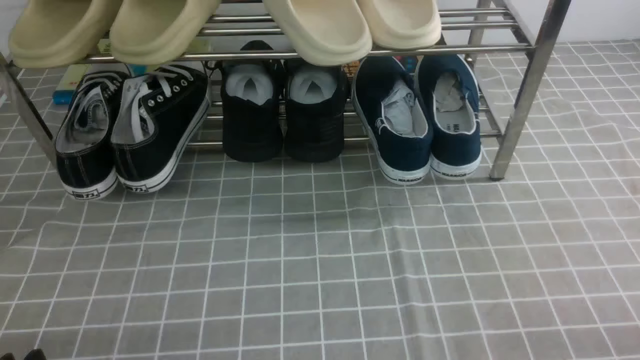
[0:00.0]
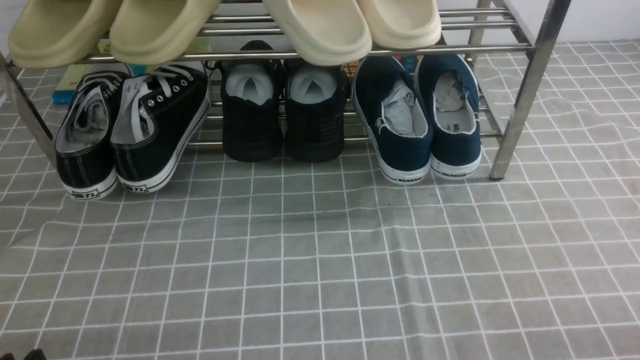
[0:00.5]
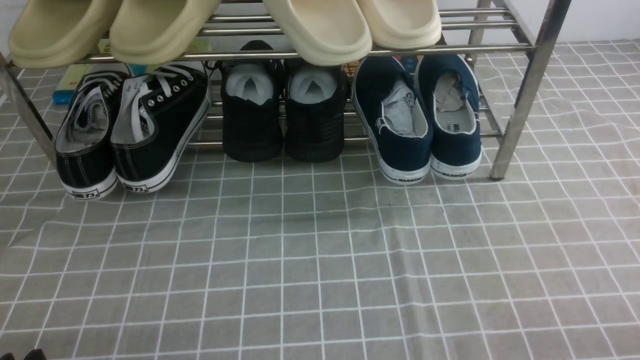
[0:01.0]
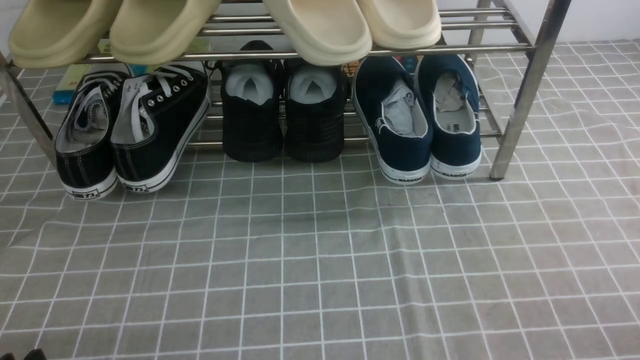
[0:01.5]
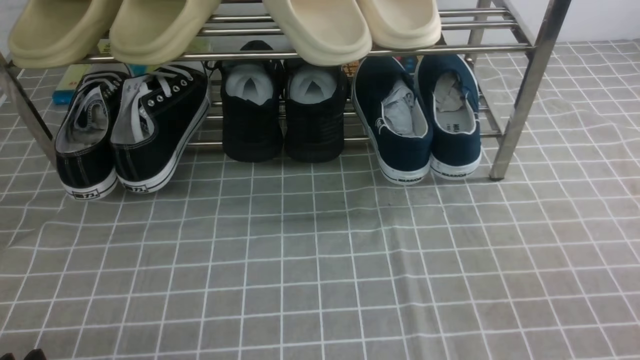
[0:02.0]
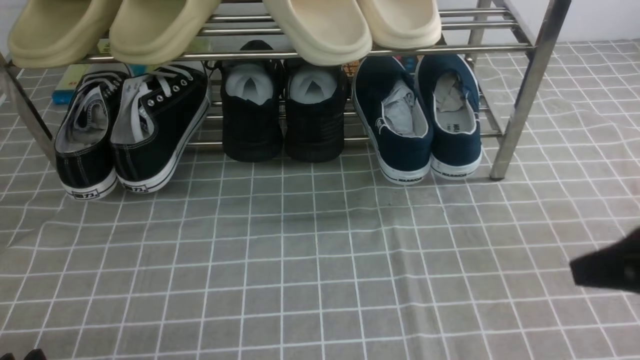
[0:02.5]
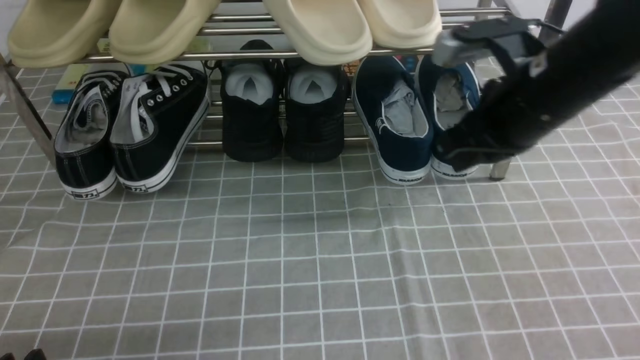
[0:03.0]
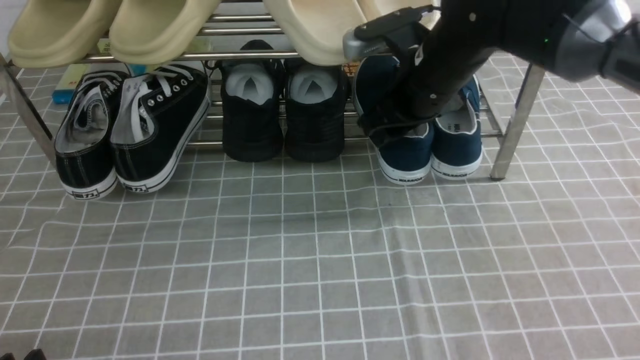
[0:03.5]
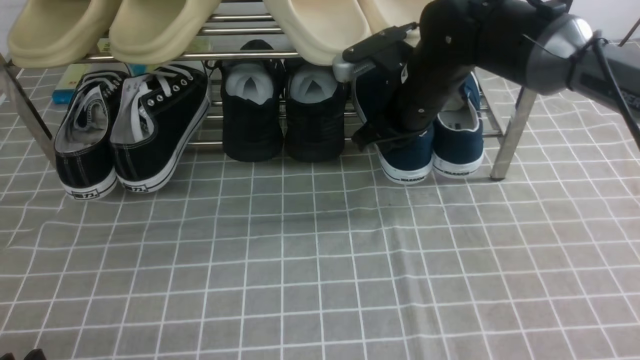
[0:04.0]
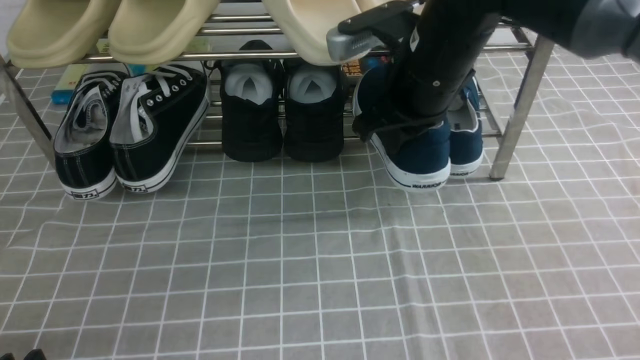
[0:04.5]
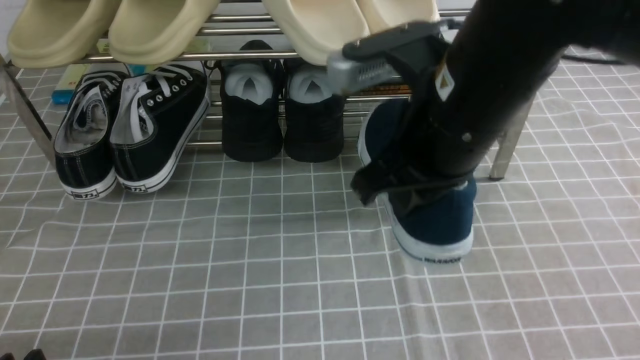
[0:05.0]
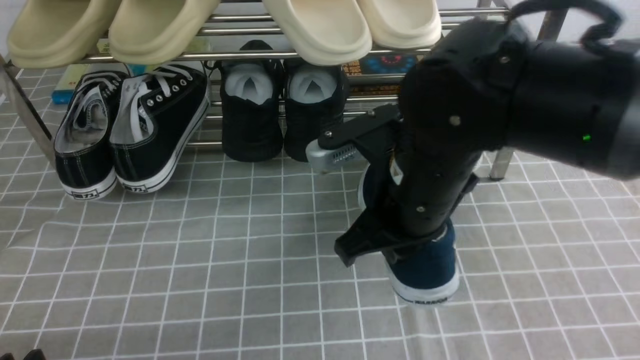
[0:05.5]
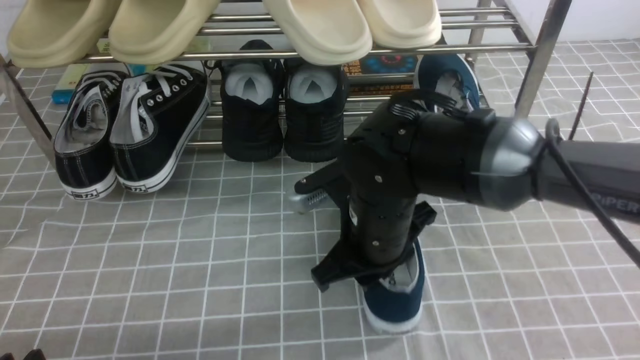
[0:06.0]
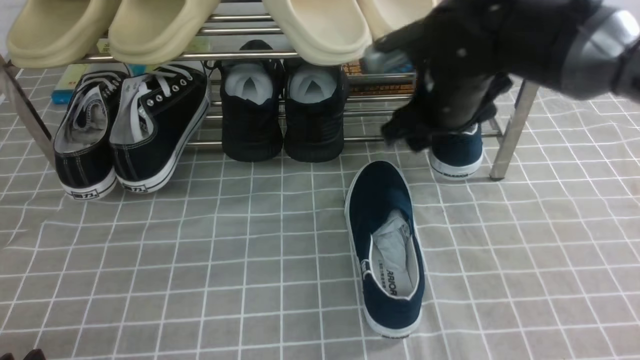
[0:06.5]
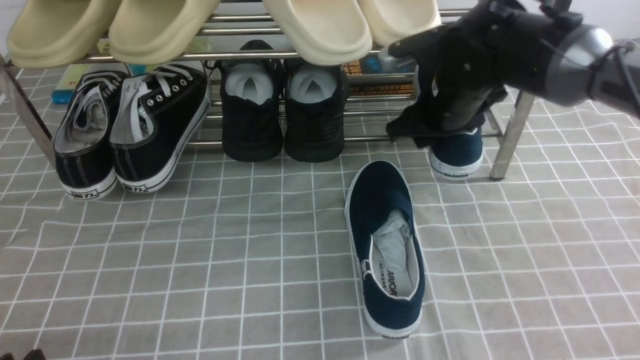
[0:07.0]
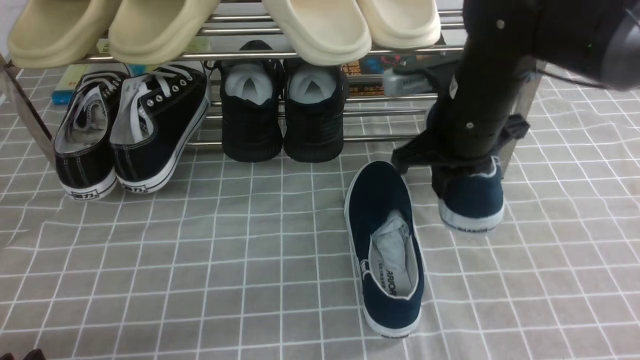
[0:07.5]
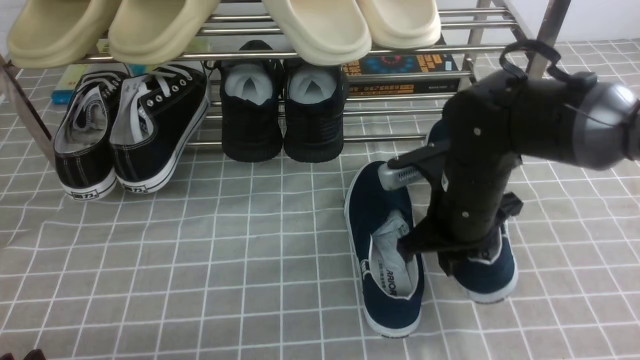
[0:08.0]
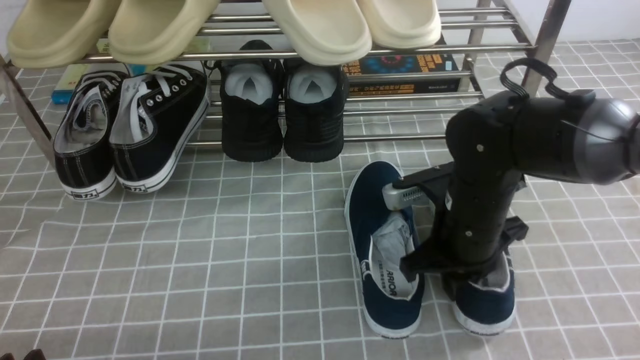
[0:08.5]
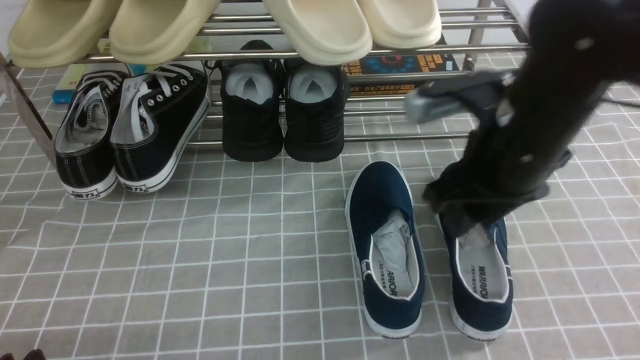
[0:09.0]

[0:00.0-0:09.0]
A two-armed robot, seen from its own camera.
Step, 0:00.0 to 0:04.0: use the right arm to clamp a shoe on the right side of the shoe rack.
Step, 0:04.5 to 0:06.0: use the right arm to take out the clamped shoe from the shoe rack and put it down.
Step, 0:06.5 to 0:07.0: use the right arm to clamp a shoe on the right side of the shoe rack.
Step, 0:07.5 to 0:08.5: use the right arm to take out the clamped shoe from the shoe rack and put it down.
0:02.0 to 0:04.5: The right gripper goes about 35 cm forward and to the left, and opens, then closes again.
0:04.5 to 0:07.0: The right gripper shifts some 10 cm downward and forward, and opens its fingers.
0:07.0 to 0:09.0: The right gripper shifts approximately 15 cm backward and upward, and closes, then opens again.

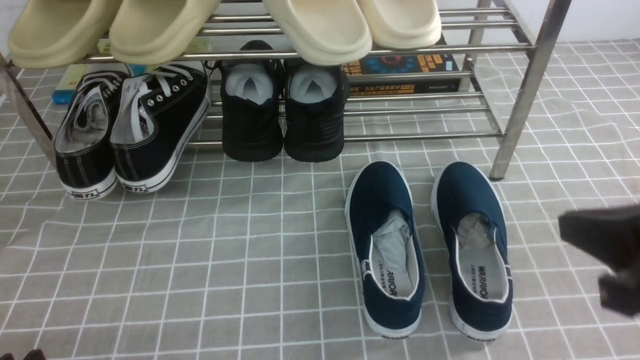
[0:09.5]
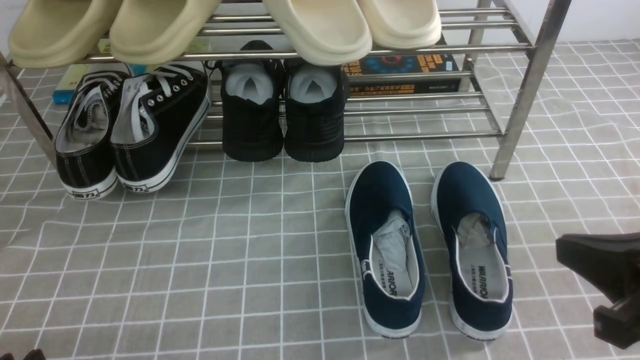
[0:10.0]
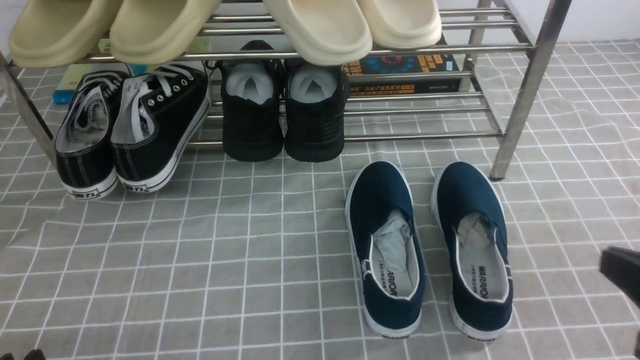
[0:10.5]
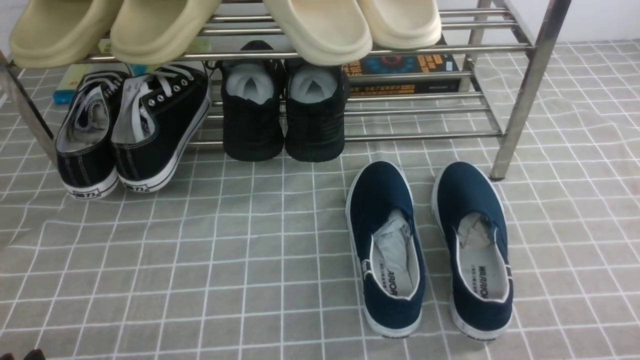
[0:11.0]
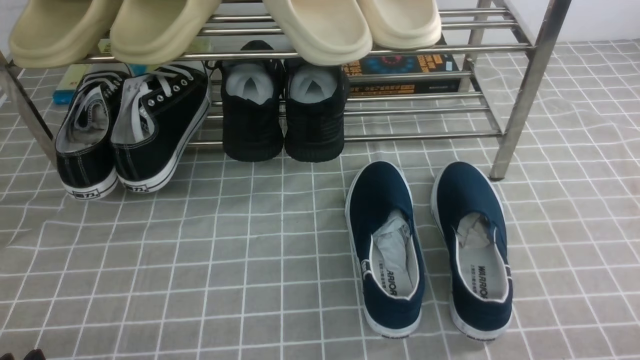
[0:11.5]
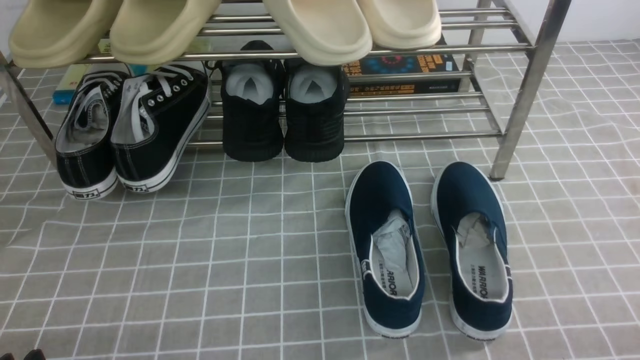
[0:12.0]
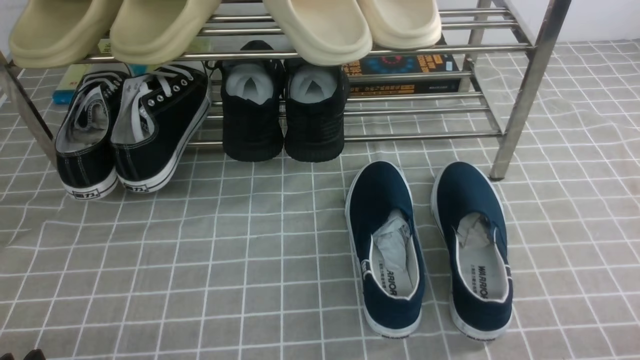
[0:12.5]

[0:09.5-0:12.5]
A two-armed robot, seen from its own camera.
0:09.5 to 0:11.0: The right gripper shifts approximately 20 cm downward, to the right and backward.
0:11.0 to 0:12.5: Both grippers stay put.
